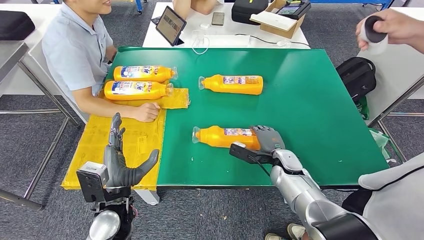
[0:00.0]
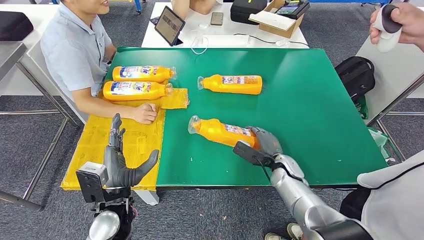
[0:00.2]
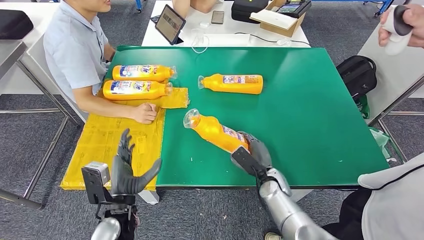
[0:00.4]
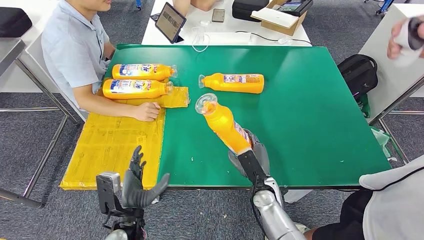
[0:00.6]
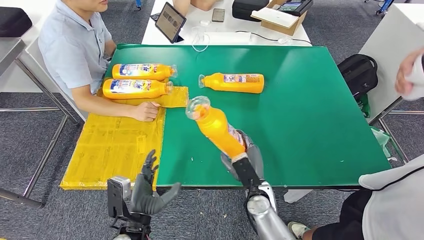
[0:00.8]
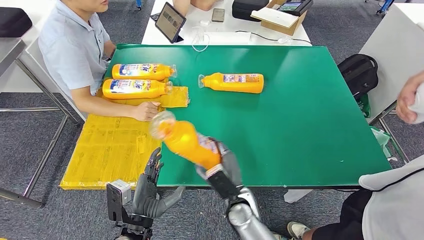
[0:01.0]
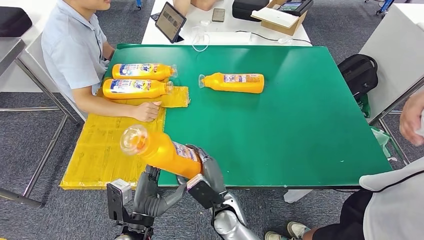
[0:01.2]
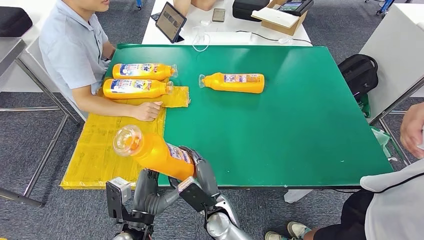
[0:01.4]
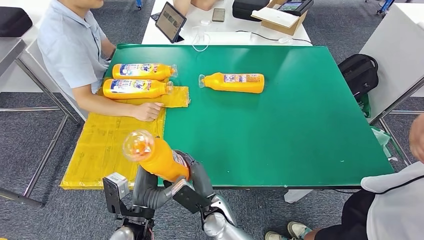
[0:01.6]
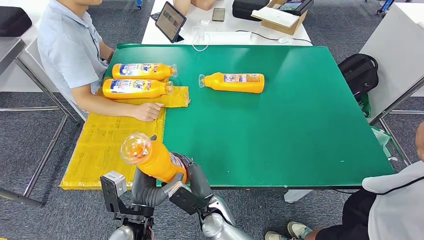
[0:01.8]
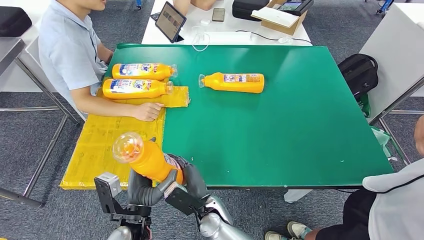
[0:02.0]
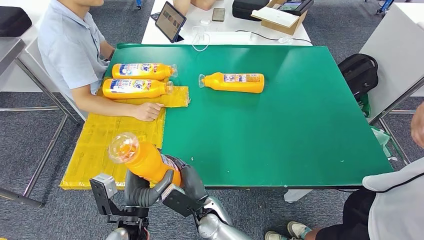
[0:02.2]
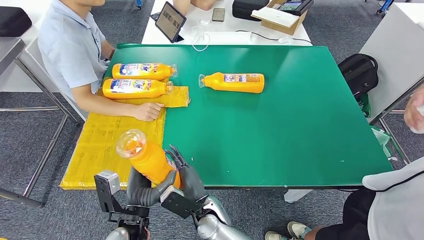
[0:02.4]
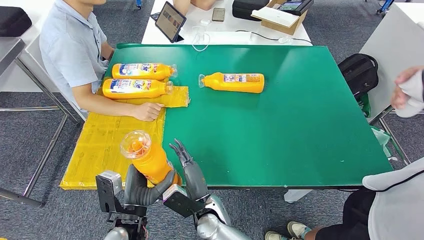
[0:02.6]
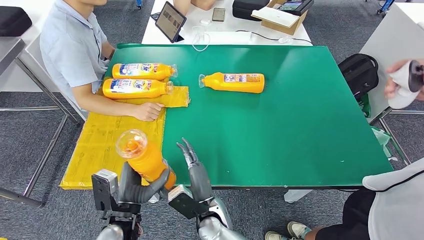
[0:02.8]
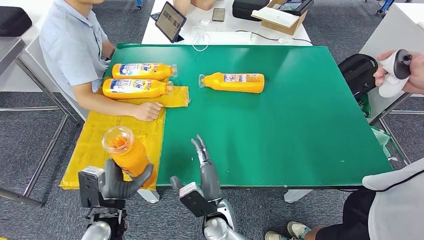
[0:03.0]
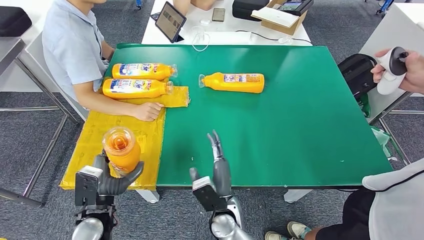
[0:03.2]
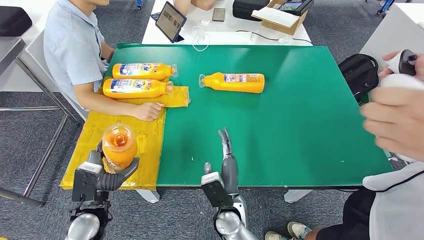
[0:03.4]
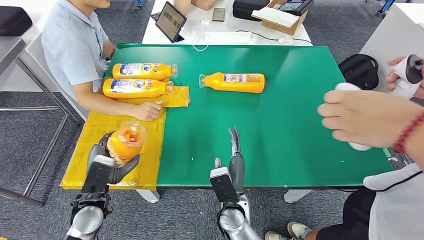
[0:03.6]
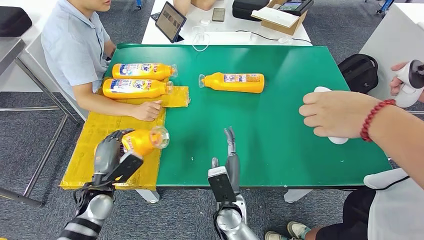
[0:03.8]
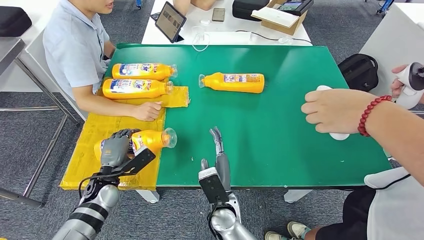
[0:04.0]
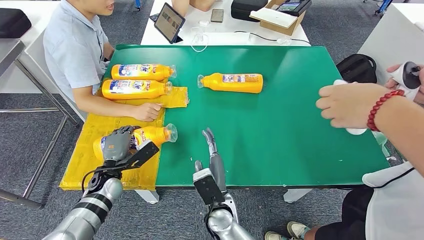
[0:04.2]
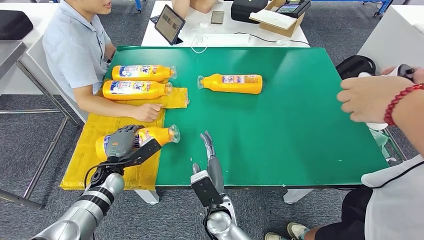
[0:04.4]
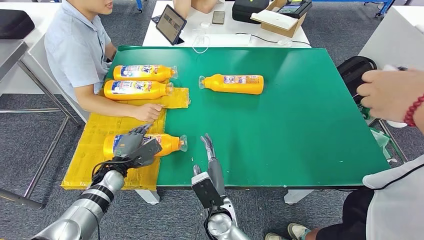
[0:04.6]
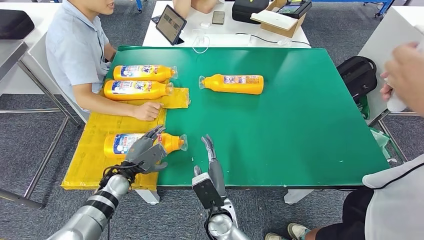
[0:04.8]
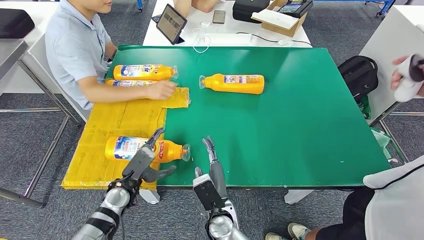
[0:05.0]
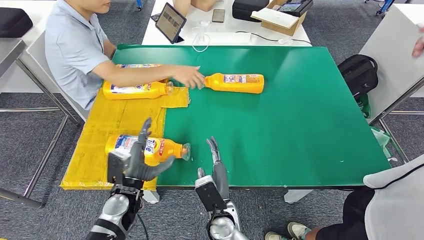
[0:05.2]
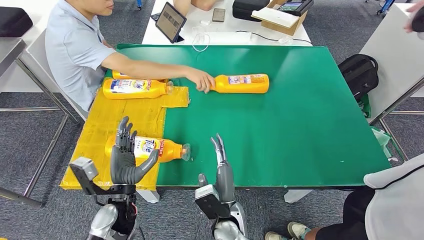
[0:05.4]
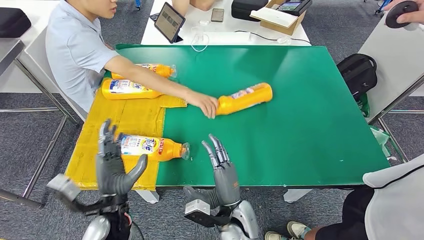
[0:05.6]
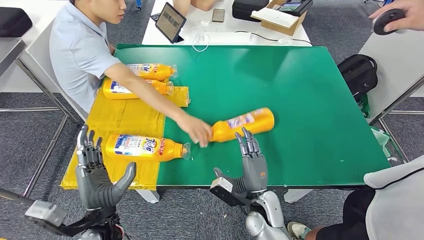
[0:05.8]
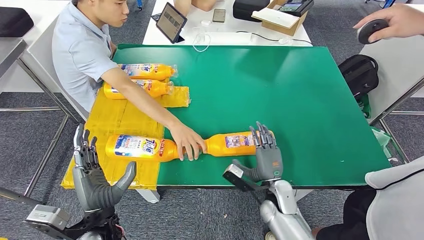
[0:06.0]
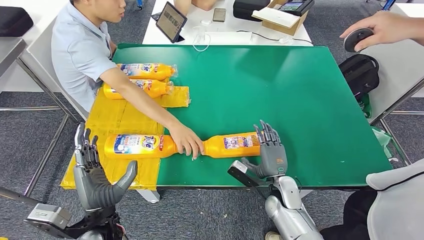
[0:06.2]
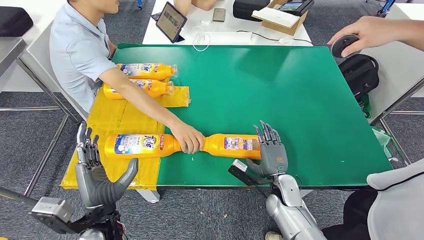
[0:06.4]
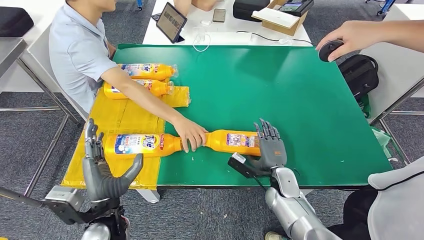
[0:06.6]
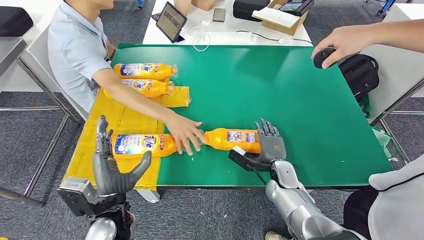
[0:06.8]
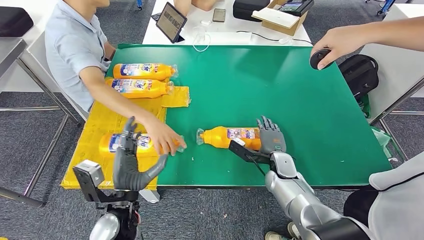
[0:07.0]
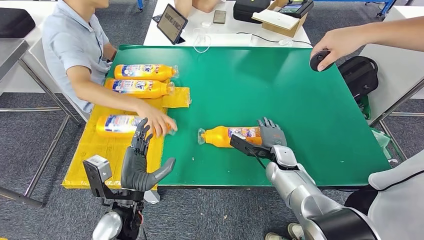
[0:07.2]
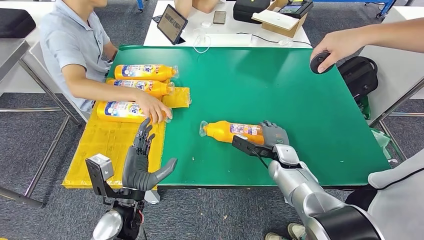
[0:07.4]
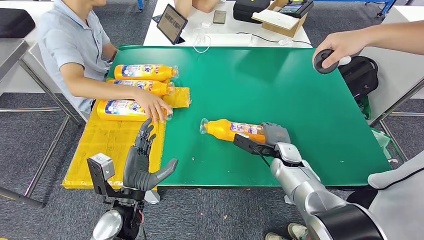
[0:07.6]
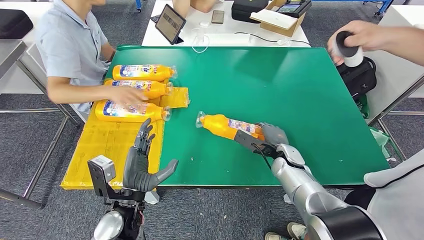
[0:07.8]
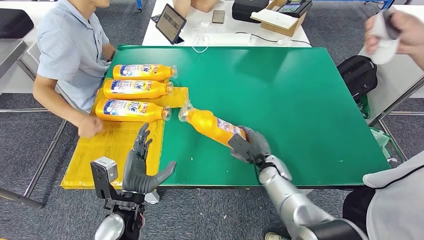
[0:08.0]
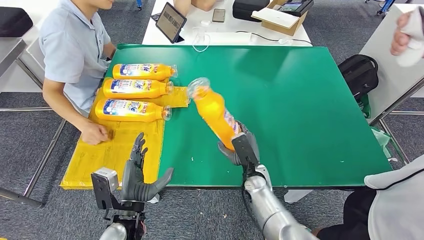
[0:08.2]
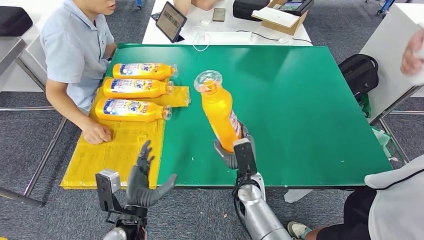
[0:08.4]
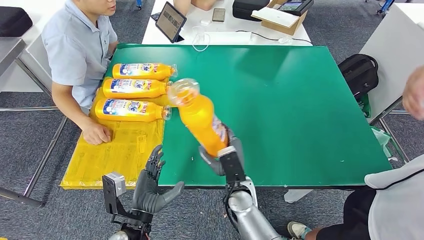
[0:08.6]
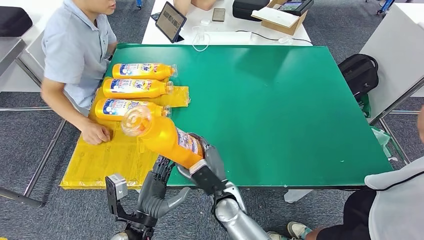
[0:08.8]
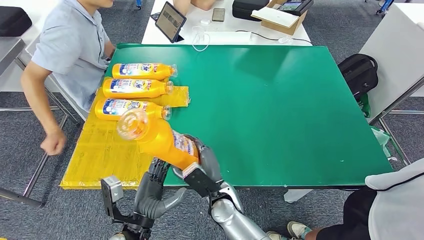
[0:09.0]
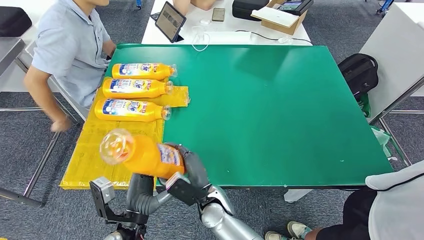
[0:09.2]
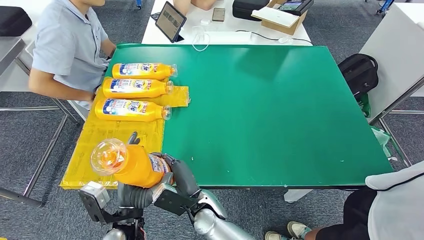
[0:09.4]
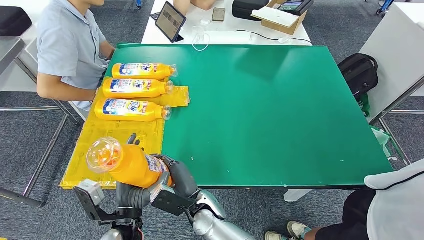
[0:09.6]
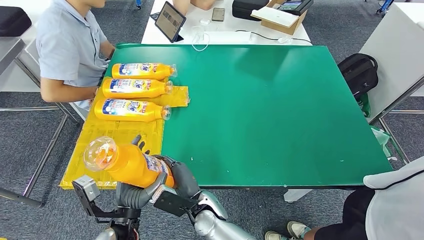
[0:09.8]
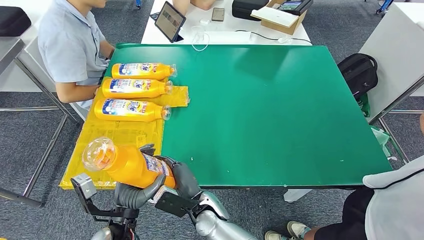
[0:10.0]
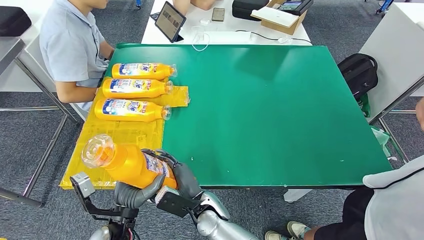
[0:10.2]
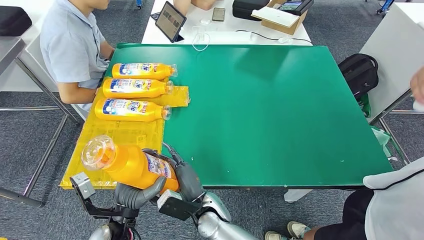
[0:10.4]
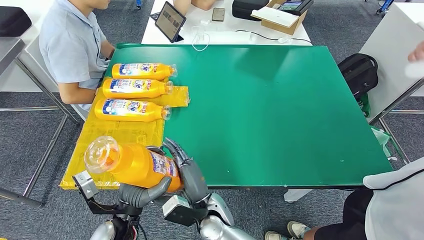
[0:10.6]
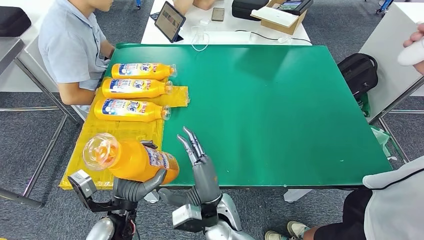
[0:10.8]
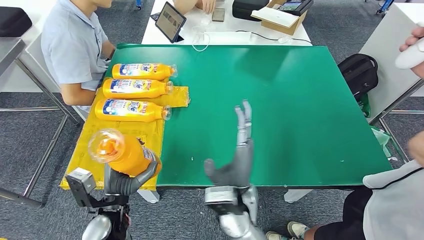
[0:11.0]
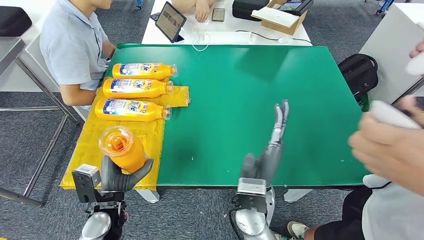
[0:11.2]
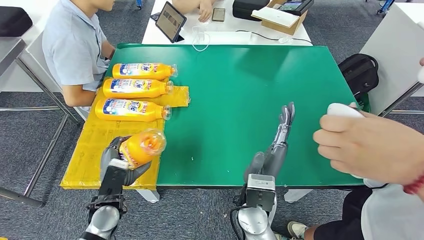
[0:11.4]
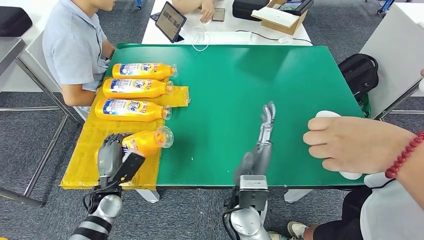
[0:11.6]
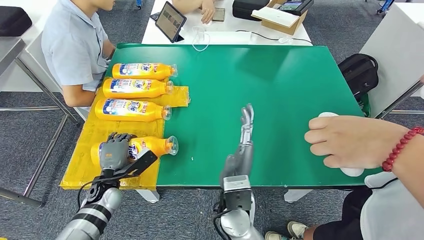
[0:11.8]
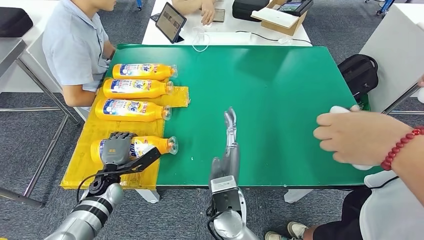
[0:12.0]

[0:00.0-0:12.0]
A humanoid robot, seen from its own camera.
Step, 0:00.0 to 0:01.8: Pick up the fast-moving consumer goods bottle from the table.
Step, 0:02.0 to 0:05.2: Flip the fast-moving consumer goods bottle to the front side.
Step, 0:07.6 to 0:10.8: Pick up the fast-moving consumer goods bottle from the table.
0:01.6 to 0:03.0: The left hand is displaced to the left by some 5 cm.
0:09.0 to 0:10.4: The right hand shifts by some 5 cm.

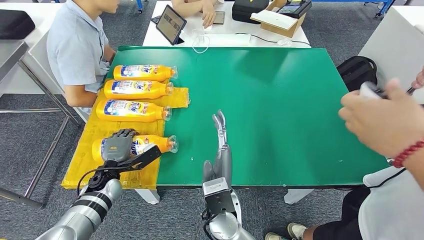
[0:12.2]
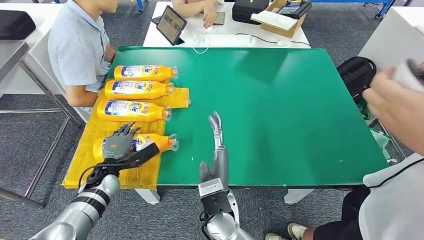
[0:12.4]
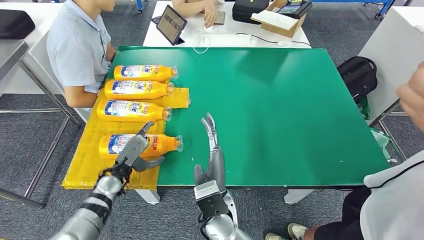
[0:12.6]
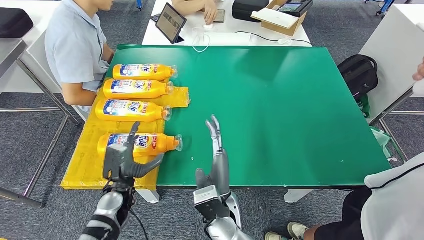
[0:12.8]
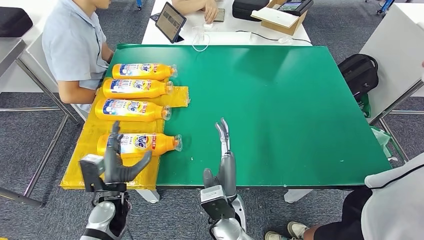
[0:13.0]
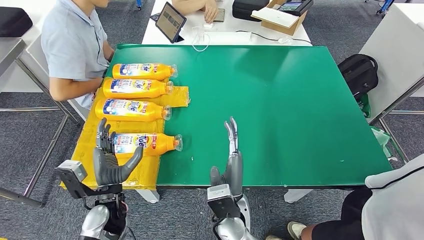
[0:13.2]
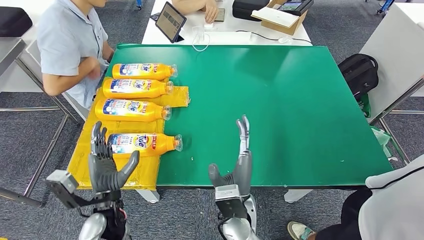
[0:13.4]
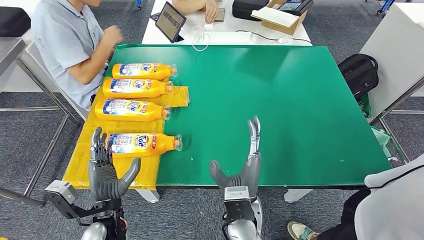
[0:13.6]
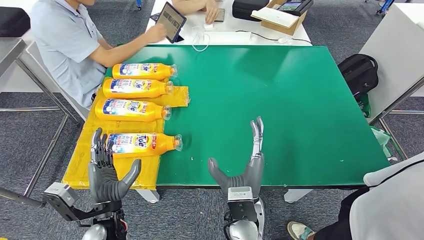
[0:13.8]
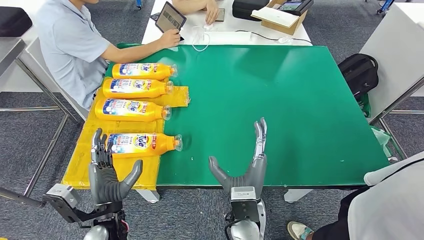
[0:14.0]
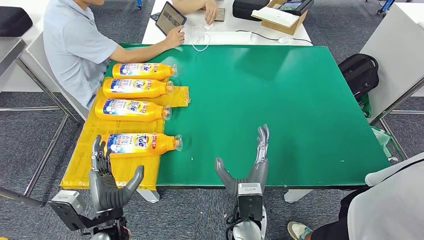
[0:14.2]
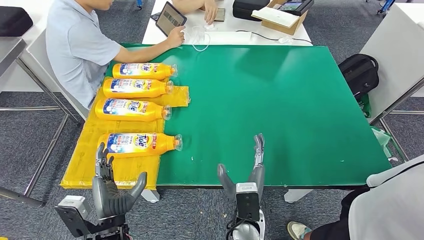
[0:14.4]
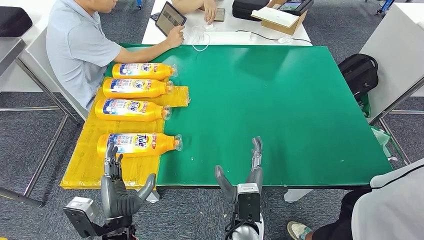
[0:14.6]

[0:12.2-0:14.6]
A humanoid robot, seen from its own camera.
Step, 0:12.2 to 0:14.6: Flip the fast-moving consumer goods bottle to the front side.
0:13.4 to 0:14.6: The left hand heads backward, covering some 5 cm, while the right hand moves about 5 cm.
